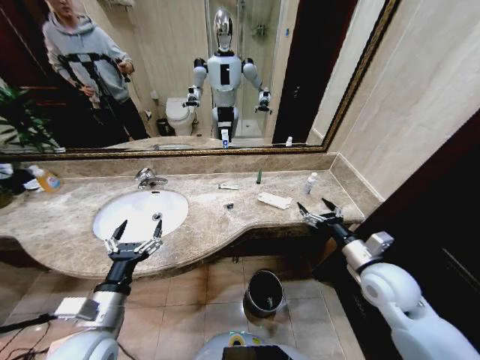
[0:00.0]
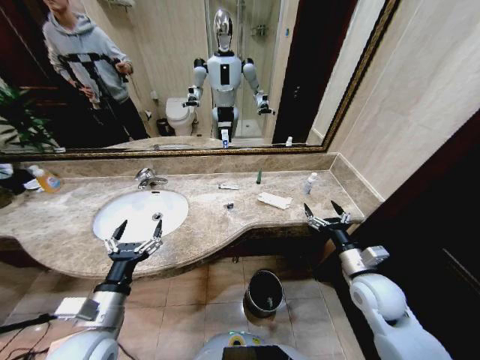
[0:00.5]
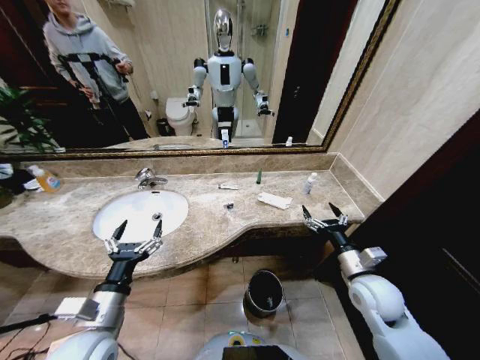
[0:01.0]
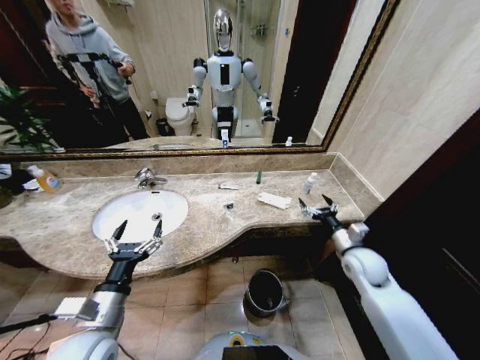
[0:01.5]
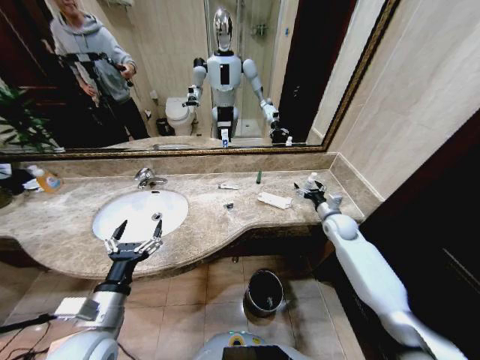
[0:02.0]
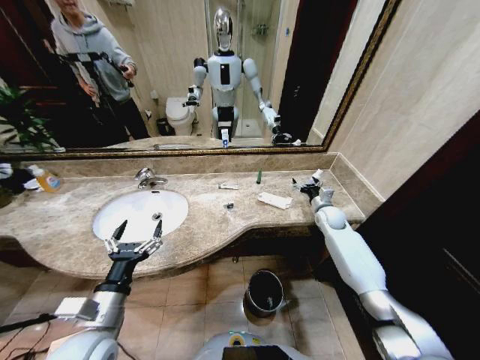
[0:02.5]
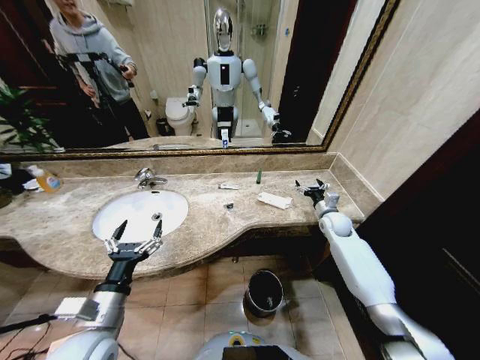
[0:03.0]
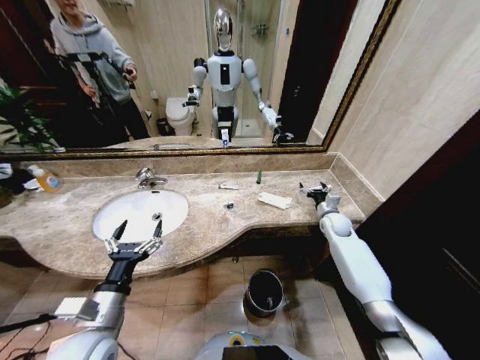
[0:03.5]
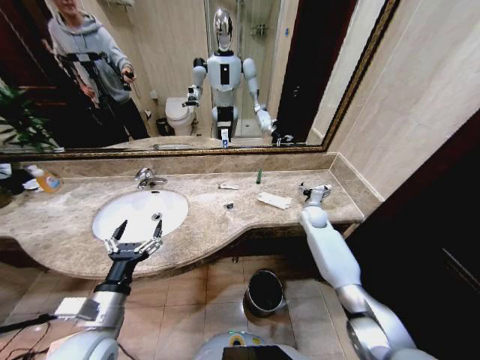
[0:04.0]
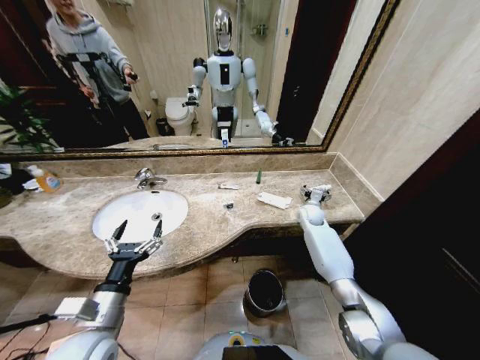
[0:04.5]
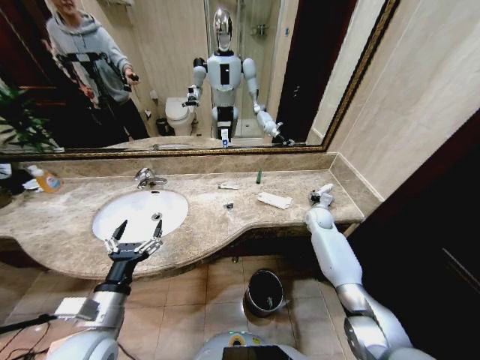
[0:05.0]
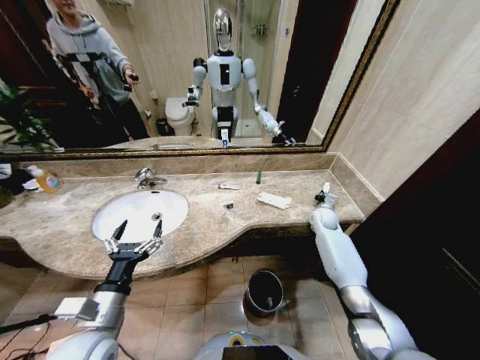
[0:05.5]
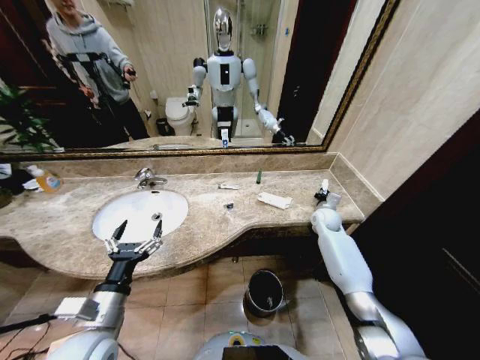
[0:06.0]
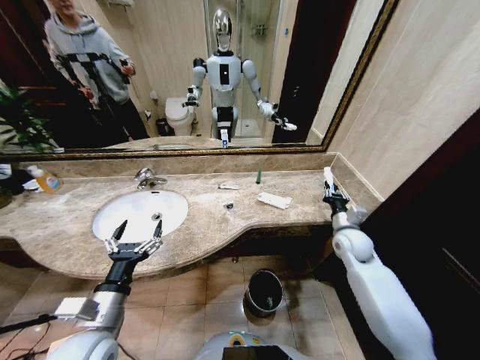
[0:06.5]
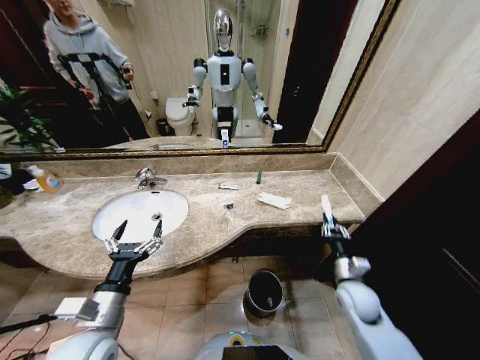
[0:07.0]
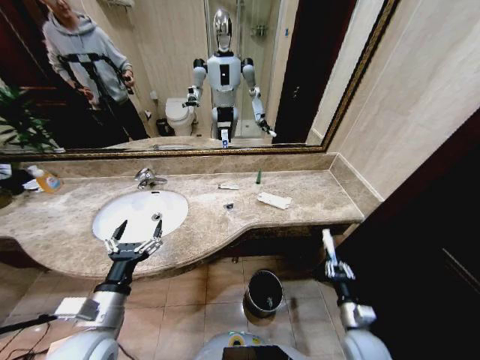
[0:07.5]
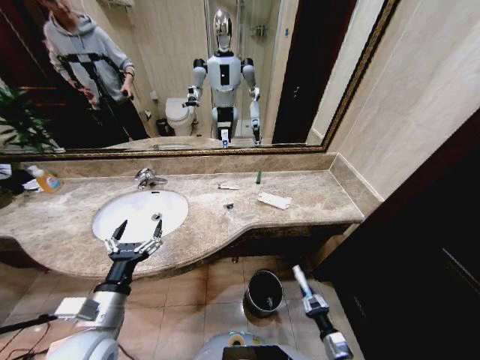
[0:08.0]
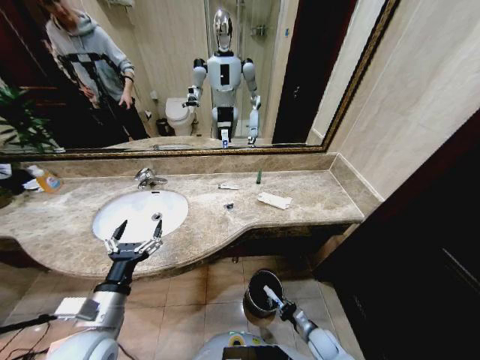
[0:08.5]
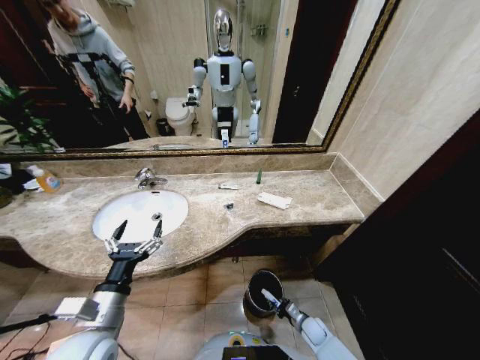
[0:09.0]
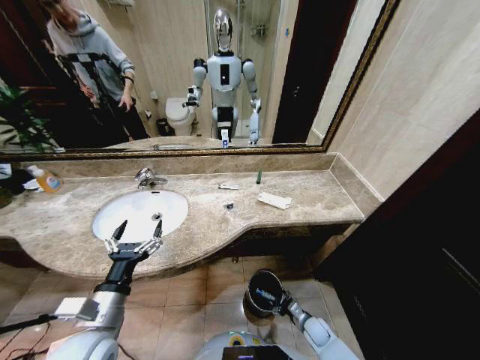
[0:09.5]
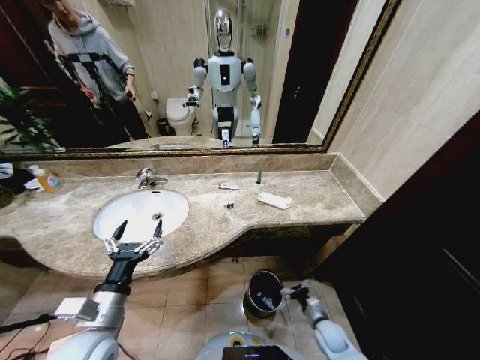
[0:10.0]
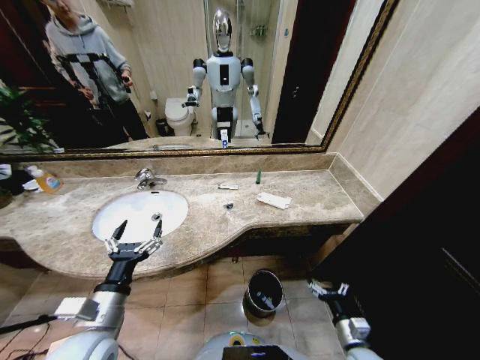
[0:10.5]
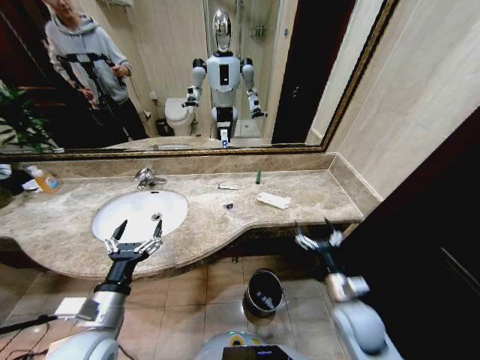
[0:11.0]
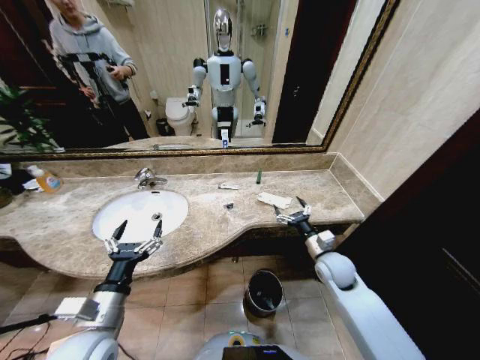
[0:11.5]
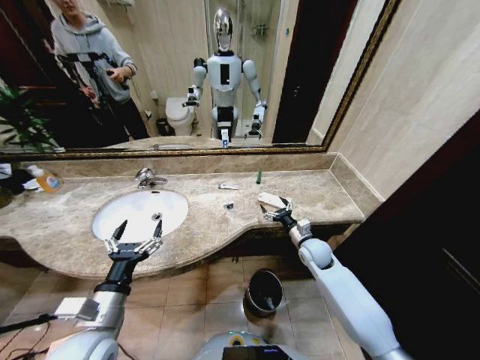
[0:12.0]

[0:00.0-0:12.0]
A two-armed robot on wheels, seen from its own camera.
Task of the whole recording: Pick up the trash from the sink and place it in the trash bin.
0:02.0 to 0:04.0: The right gripper heads forward and to the left, covering about 10 cm.
0:04.0 to 0:06.0: The right gripper closes its fingers.
0:06.0 to 0:08.0: The right gripper heads backward and downward, covering approximately 50 cm.
0:08.0 to 0:10.0: The right gripper travels forward by approximately 10 cm, and opens its fingers.
0:10.0 to 0:12.0: The right gripper heads upward and forward, covering roughly 30 cm.

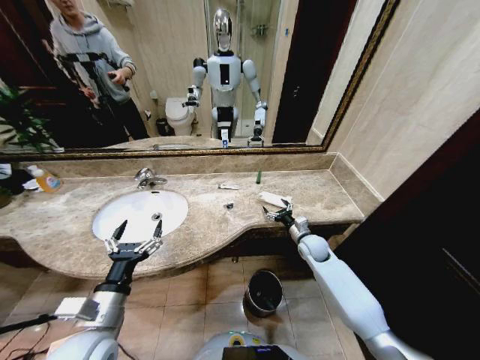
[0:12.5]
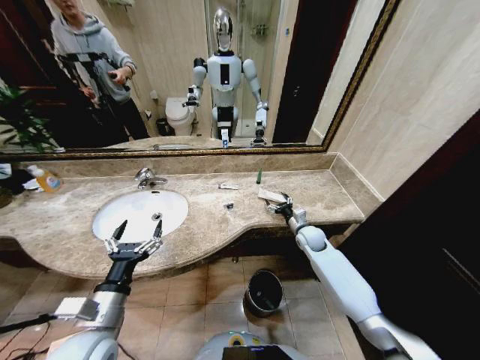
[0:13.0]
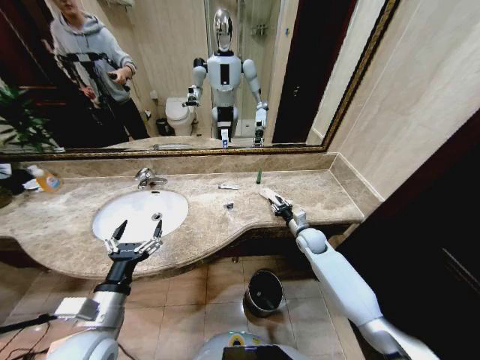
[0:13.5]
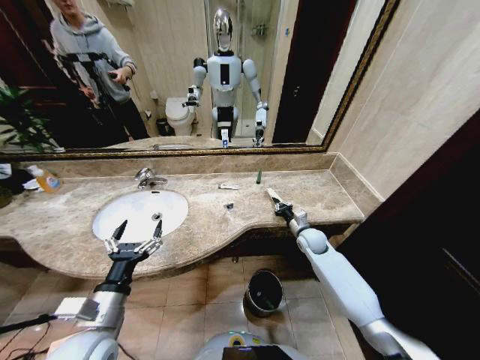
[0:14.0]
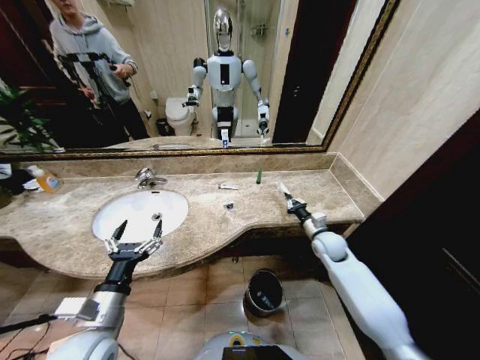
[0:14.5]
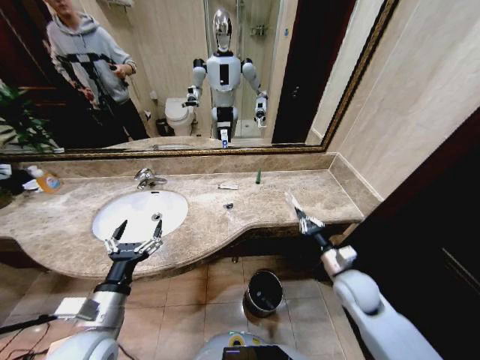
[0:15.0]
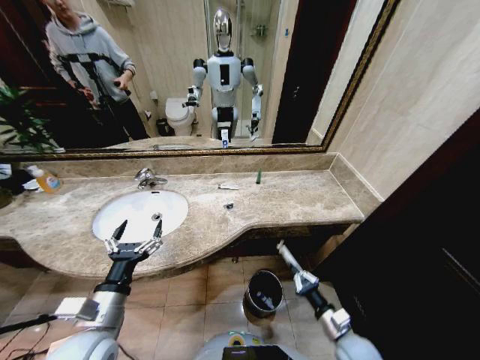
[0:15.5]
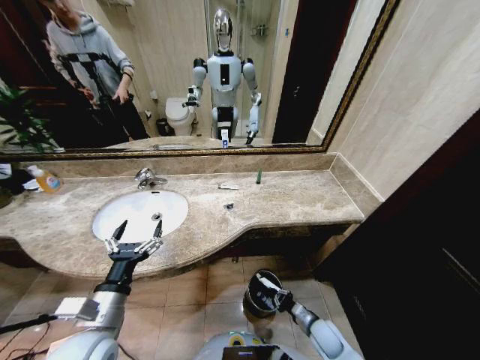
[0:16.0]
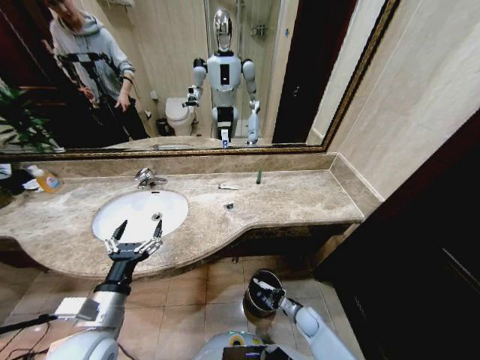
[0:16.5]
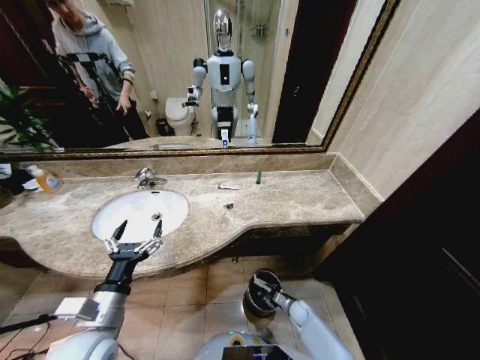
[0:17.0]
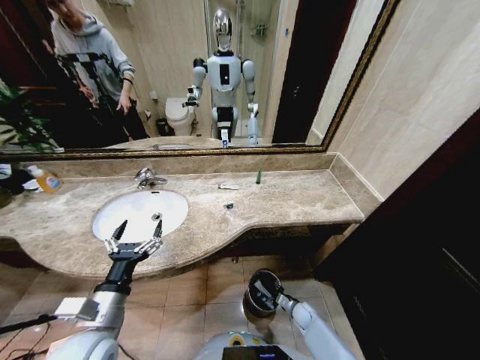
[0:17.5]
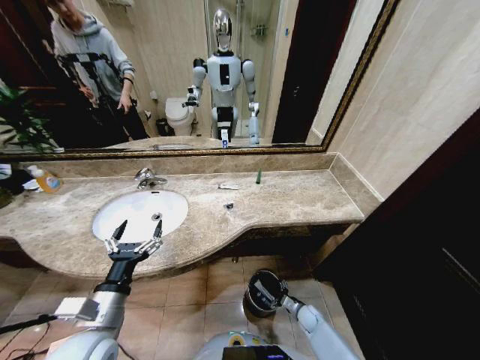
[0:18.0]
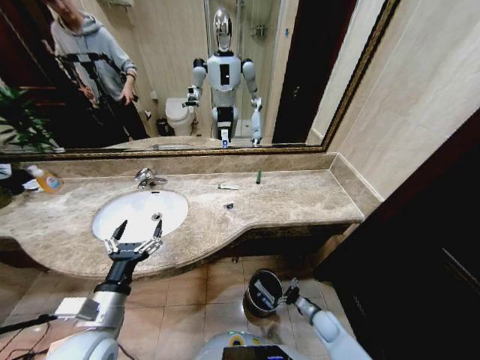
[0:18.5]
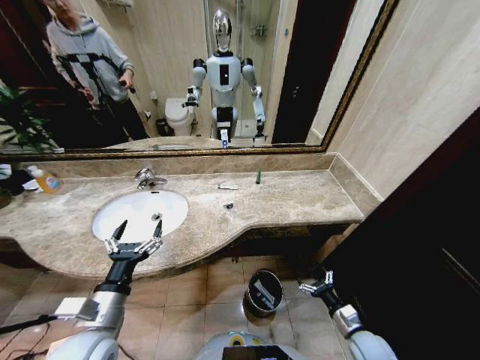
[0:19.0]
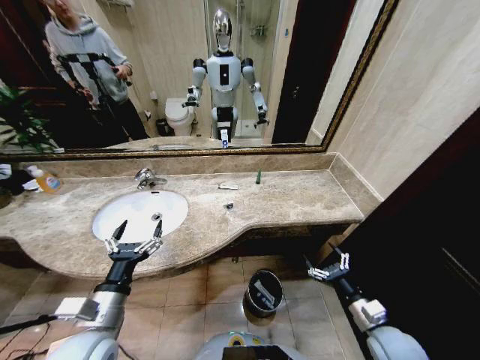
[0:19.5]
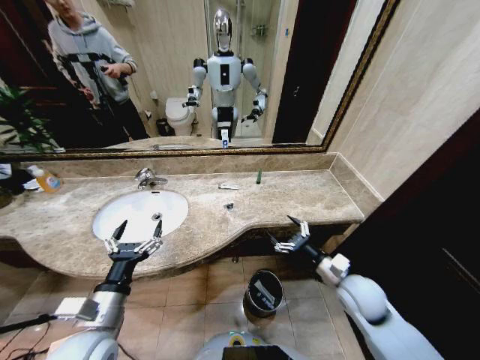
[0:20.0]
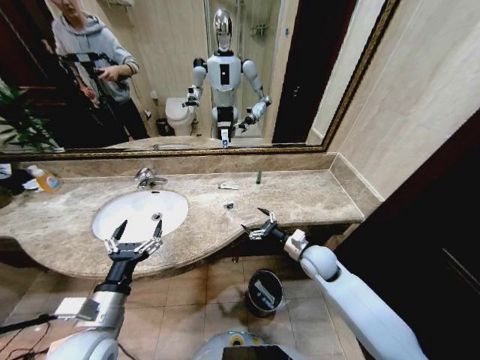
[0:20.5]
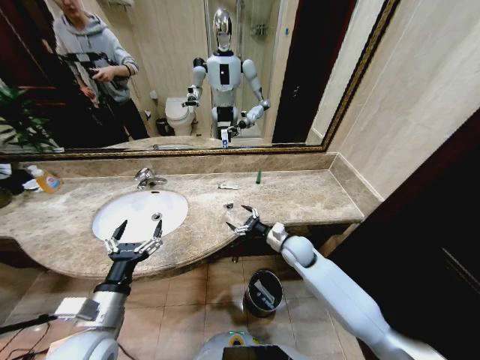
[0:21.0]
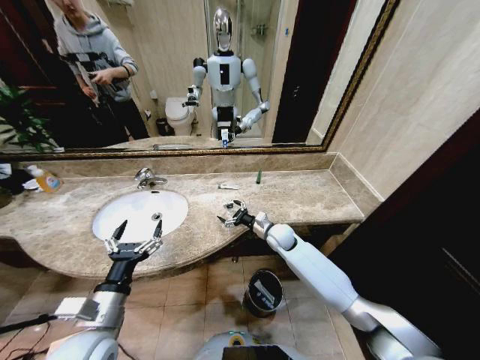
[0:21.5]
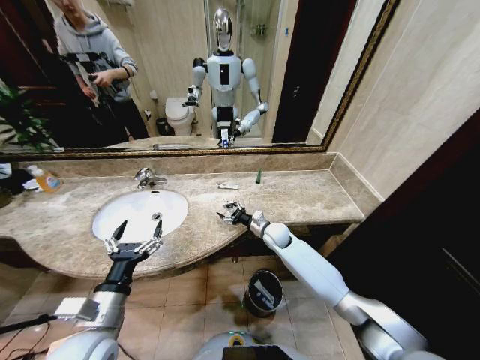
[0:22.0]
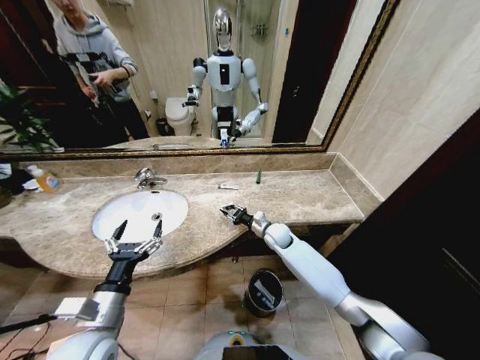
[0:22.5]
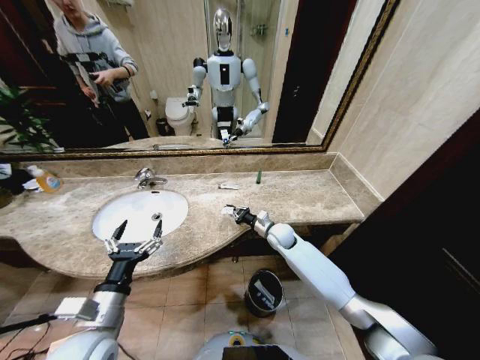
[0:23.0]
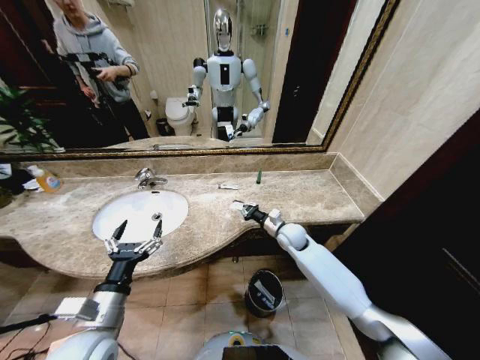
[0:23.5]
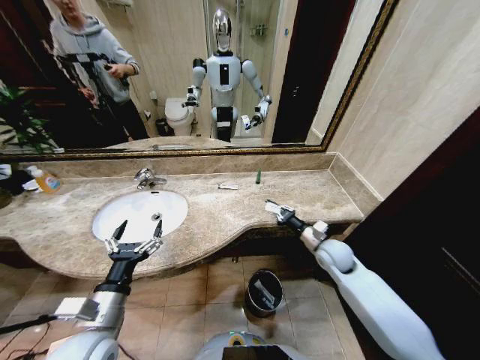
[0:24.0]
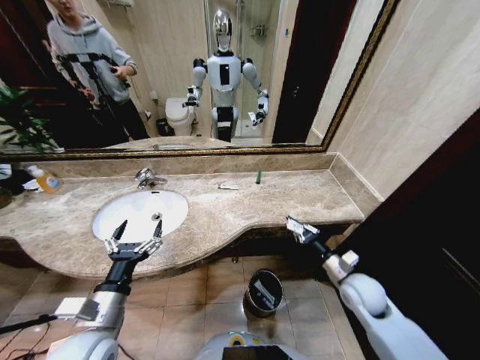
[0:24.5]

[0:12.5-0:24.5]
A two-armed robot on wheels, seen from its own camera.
Task of the whole recording: Pick up the trash from the sink and place it in the trash bin.
0:12.5 to 0:14.5: The right gripper ends up roughly 5 cm from where it was, and closes up.
0:14.5 to 0:16.5: The right gripper heads downward and backward, covering some 30 cm.
0:16.5 to 0:18.5: The right gripper heads to the right, covering about 5 cm, and opens its fingers.
0:18.5 to 0:20.5: The right gripper moves upward and forward, approximately 30 cm.
0:20.5 to 0:22.5: The right gripper travels forward and to the left by about 15 cm, and closes.
0:22.5 to 0:24.5: The right gripper heads backward and to the right, covering roughly 25 cm, and closes its fingers.

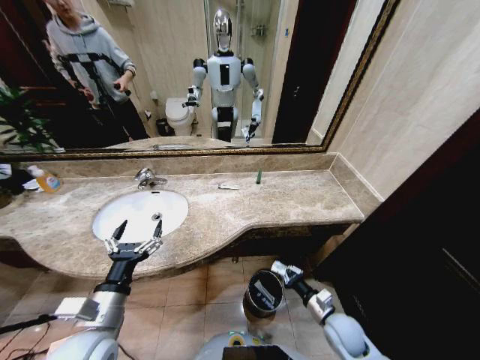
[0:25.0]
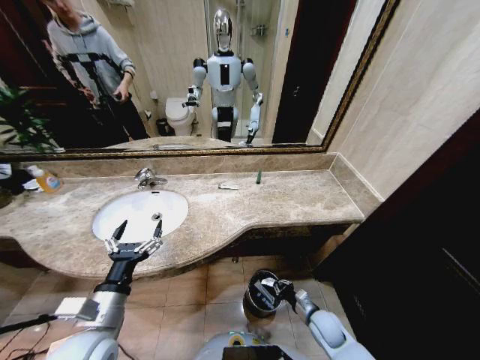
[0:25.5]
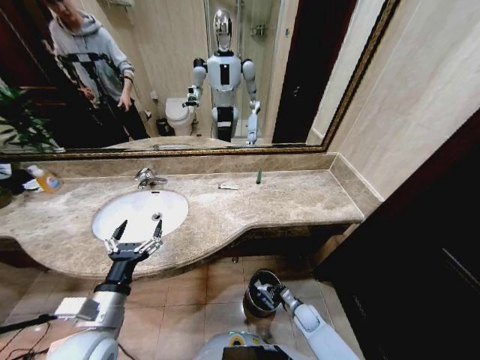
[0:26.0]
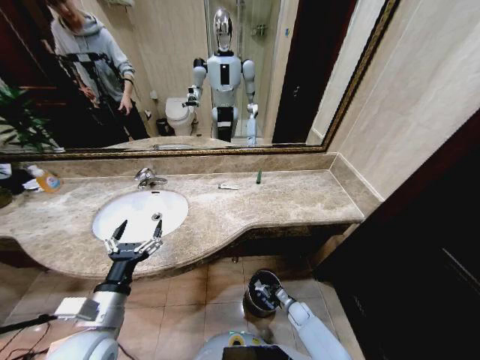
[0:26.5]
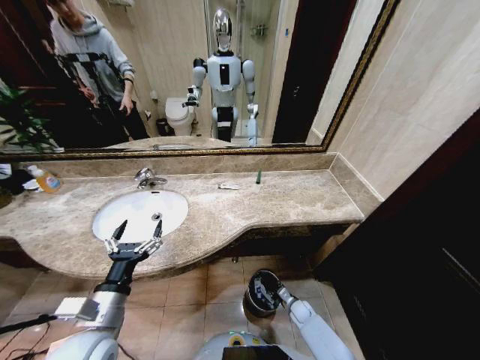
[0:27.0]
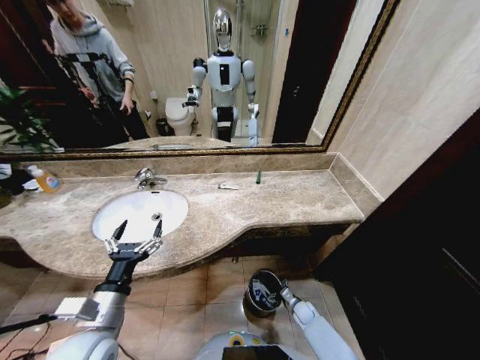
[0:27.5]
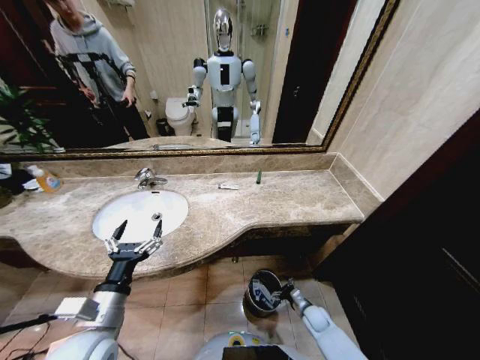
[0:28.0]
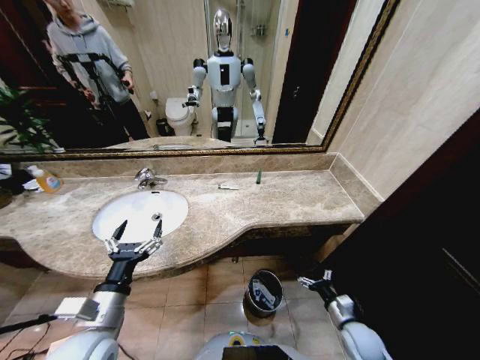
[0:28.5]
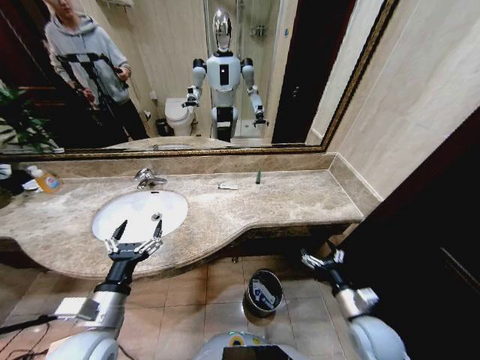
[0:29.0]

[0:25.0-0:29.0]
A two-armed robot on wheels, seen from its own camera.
Task of the whole recording: Pick up the trash from the sink and place it in the trash bin.
0:25.0 to 0:27.0: The right gripper shifts approximately 20 cm downward, and opens its fingers.
0:27.0 to 0:29.0: The right gripper shifts roughly 30 cm upward, and opens.
